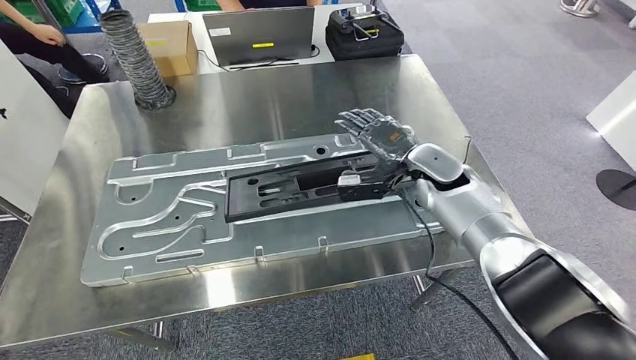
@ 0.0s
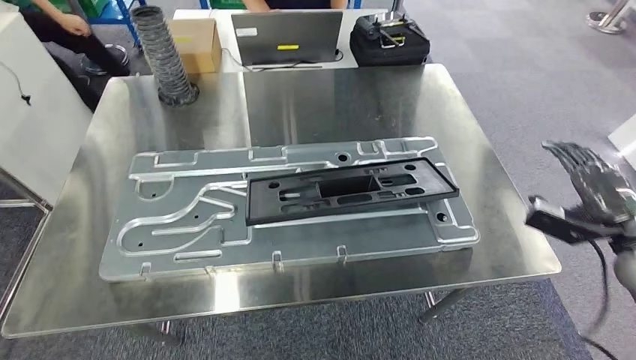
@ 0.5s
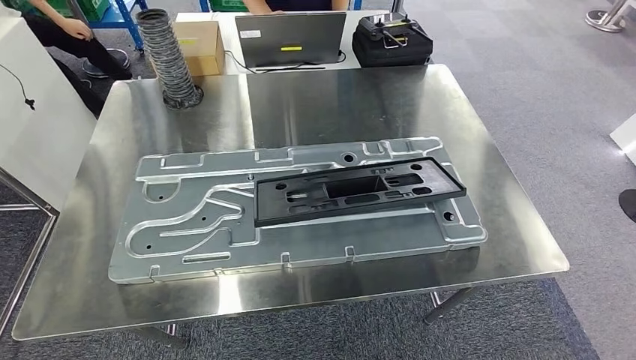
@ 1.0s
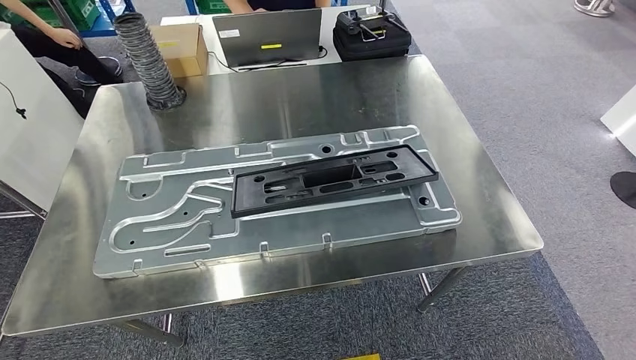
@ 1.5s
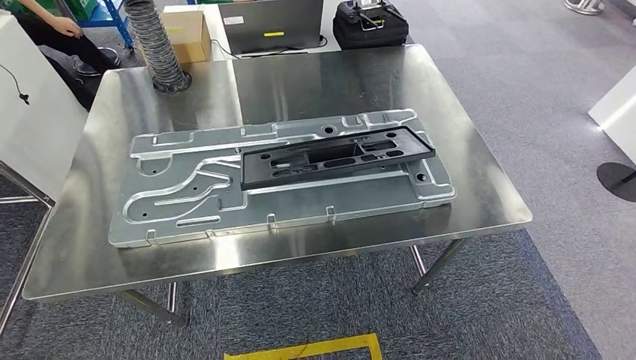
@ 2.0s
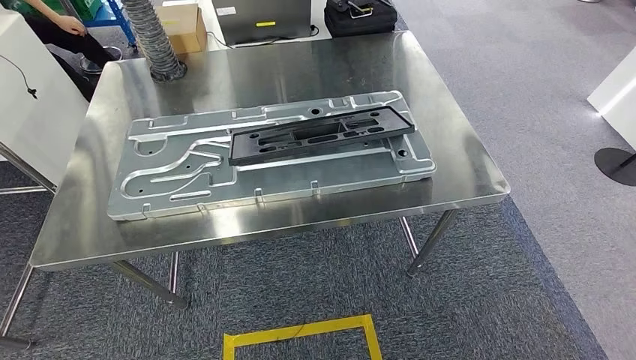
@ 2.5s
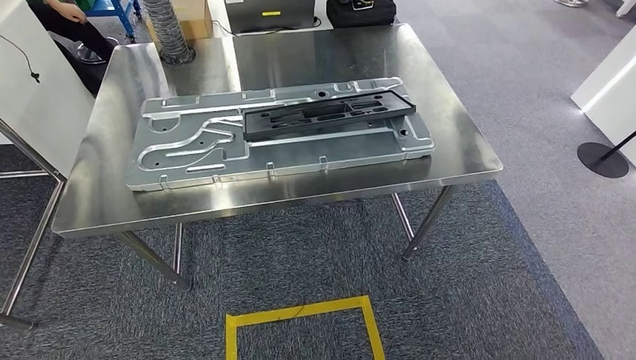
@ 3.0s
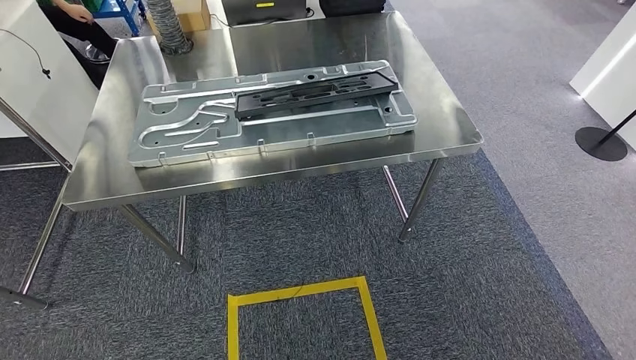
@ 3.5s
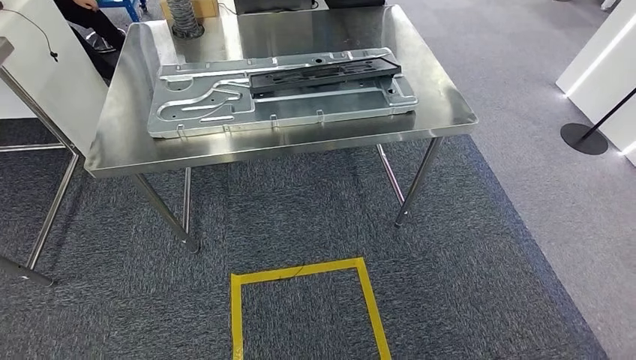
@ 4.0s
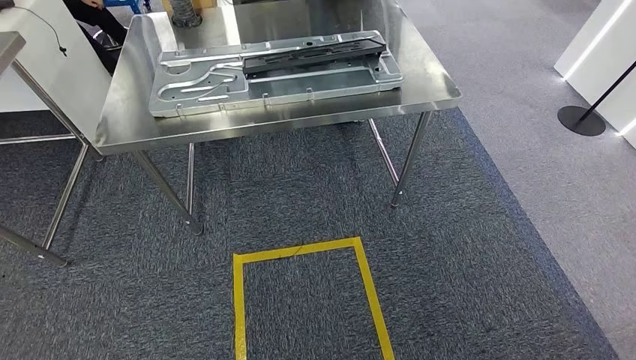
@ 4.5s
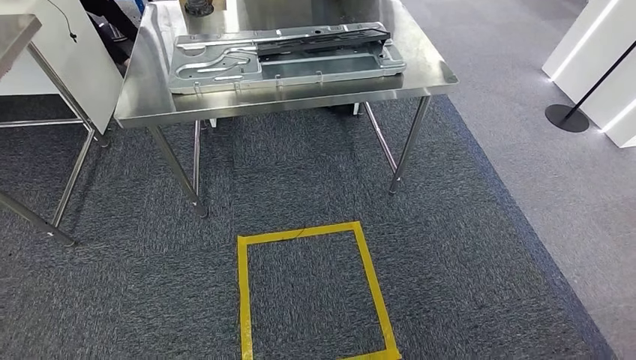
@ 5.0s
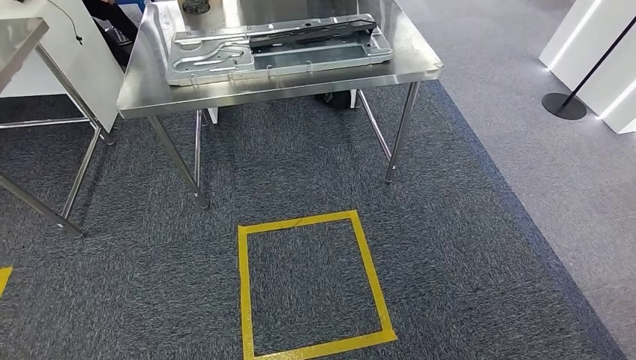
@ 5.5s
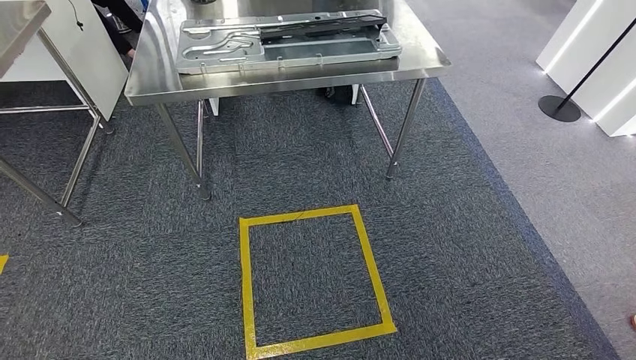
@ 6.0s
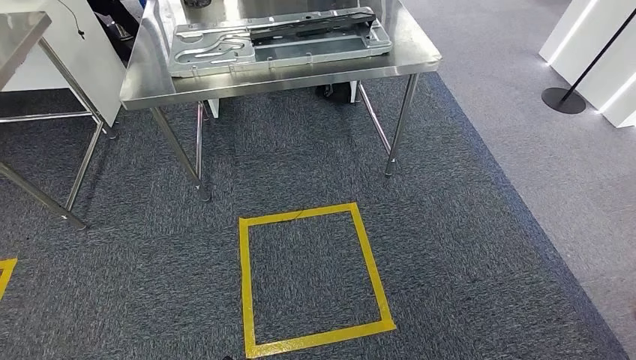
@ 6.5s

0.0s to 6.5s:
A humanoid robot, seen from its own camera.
Step, 0.0s to 1.5s: Insert the large material into the corresponding slot on the workbench.
Step, 2.0s to 6.5s: Move to the initial position of the shelf.
